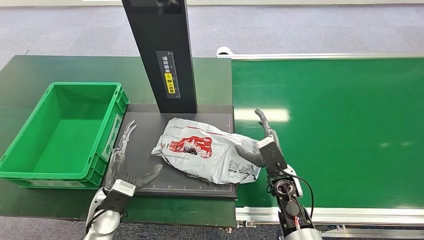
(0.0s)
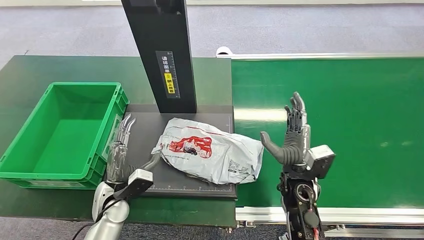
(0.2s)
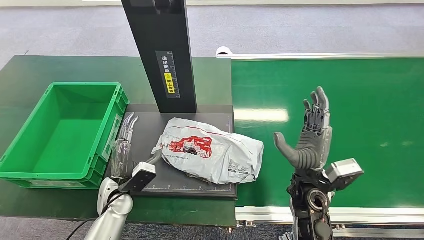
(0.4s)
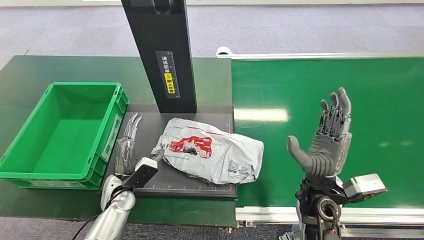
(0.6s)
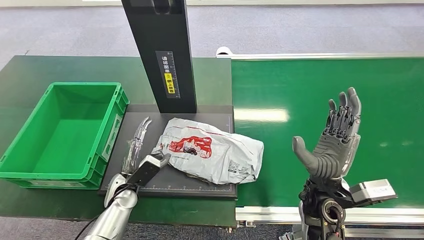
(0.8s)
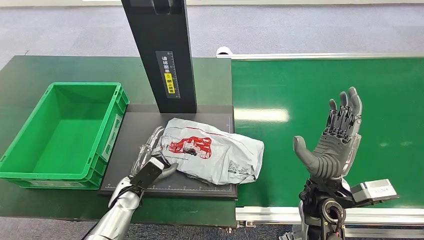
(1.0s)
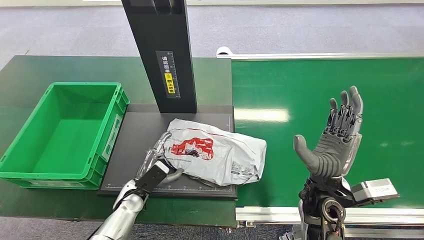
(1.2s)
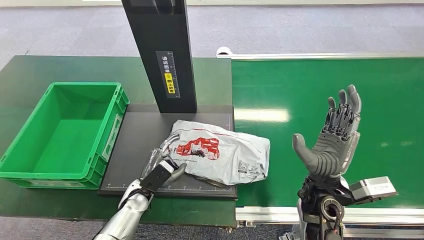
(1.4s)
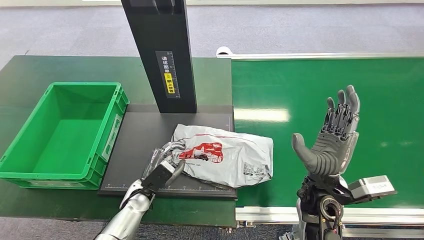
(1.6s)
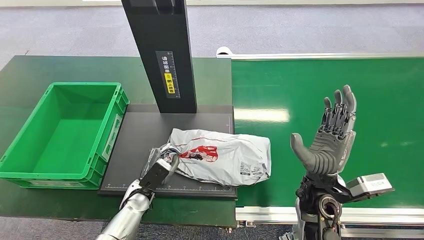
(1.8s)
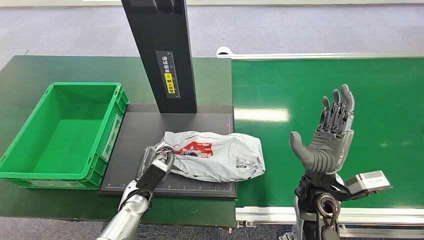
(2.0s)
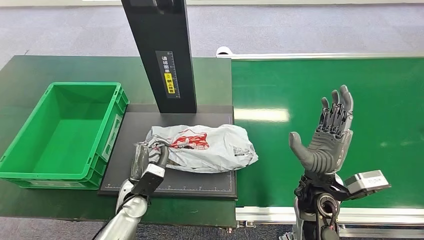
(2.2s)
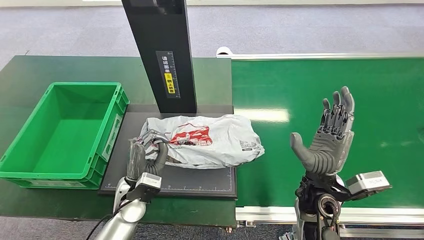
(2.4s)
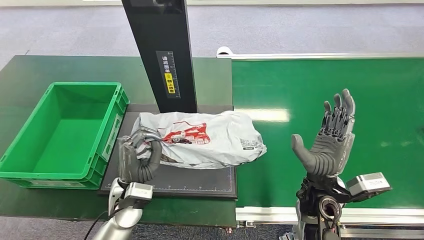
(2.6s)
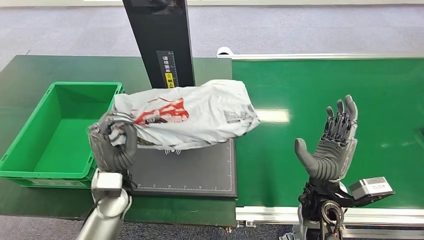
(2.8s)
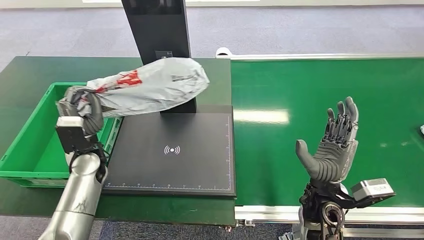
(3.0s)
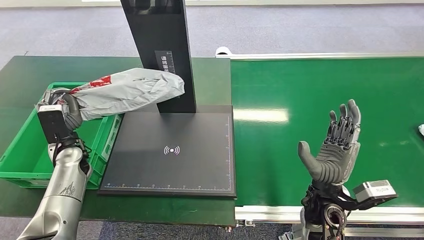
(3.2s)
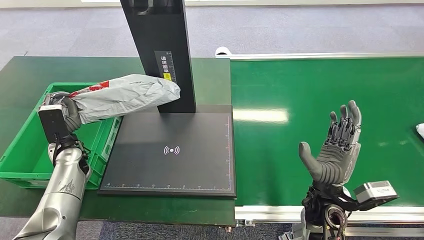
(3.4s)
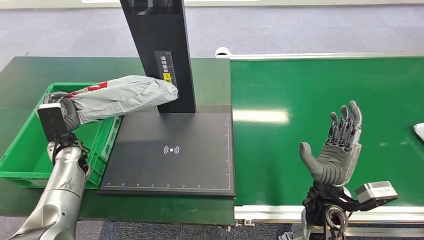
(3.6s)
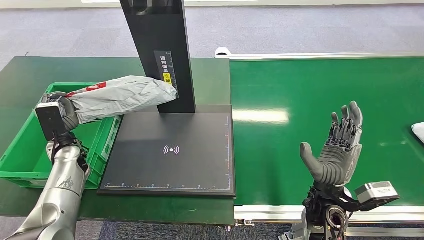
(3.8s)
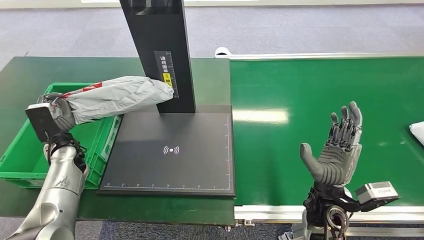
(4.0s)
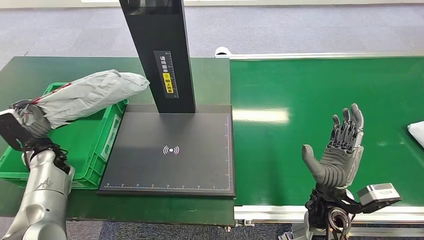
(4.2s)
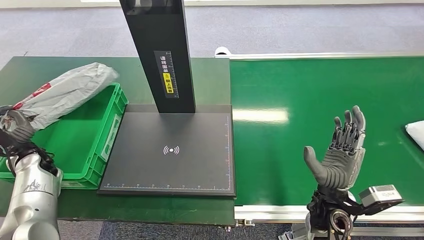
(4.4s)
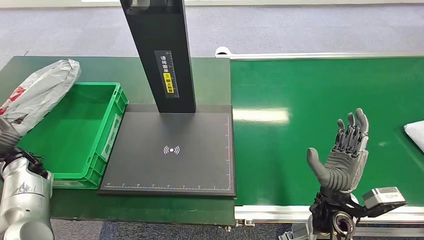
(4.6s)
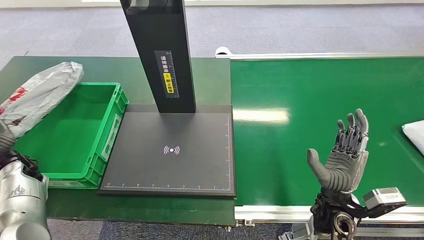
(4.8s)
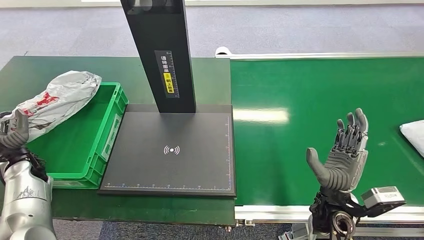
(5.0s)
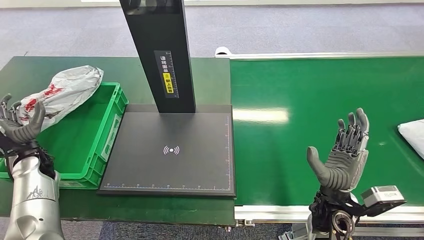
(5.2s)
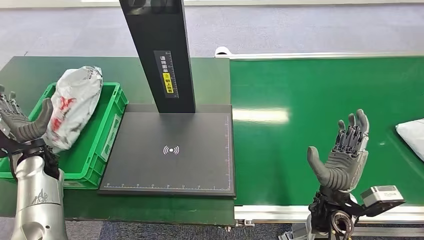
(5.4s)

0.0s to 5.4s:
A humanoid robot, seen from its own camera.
Step, 0.0s to 2.8s: Pick up the package from the inbound machine.
Step, 3.0s to 5.2s: Place the package into the parcel locker.
0.0s to 1.4s: The right hand shifts some 10 cm upward; the left hand is displaced downward by approximately 5 cm.
